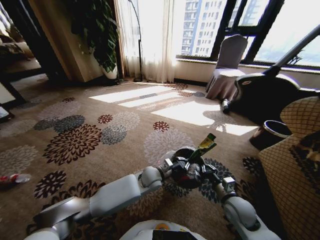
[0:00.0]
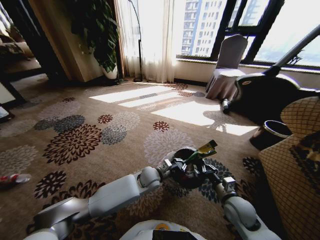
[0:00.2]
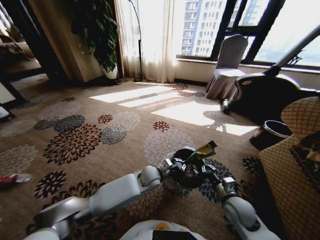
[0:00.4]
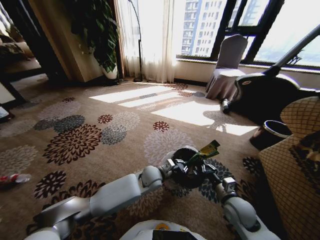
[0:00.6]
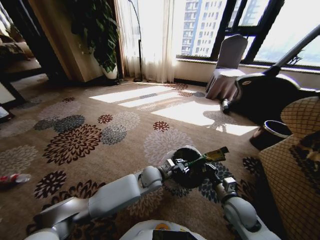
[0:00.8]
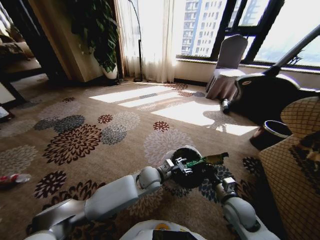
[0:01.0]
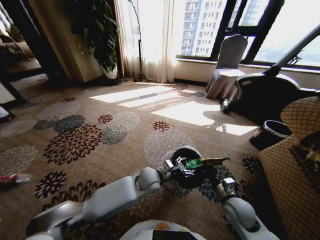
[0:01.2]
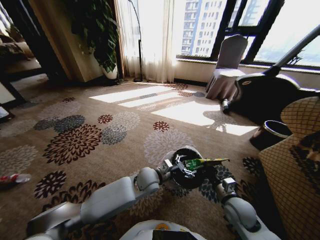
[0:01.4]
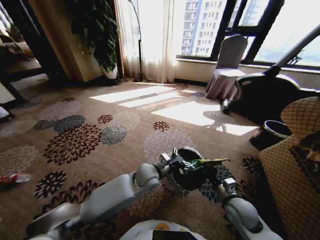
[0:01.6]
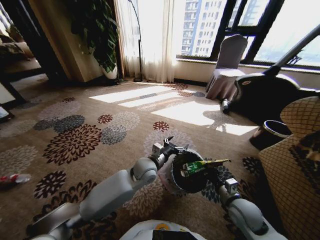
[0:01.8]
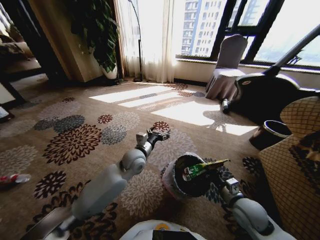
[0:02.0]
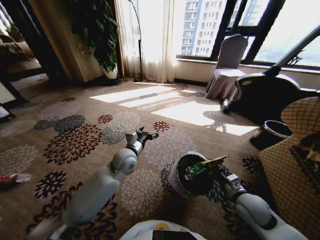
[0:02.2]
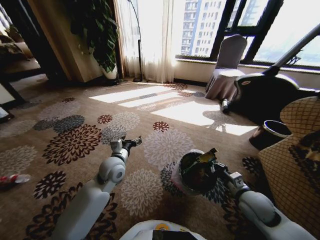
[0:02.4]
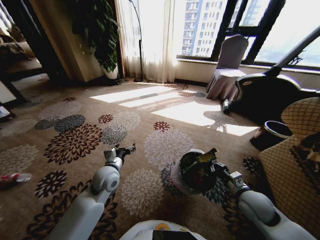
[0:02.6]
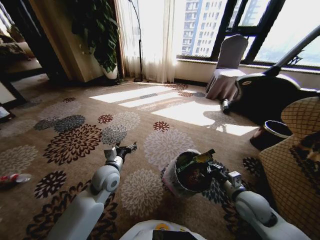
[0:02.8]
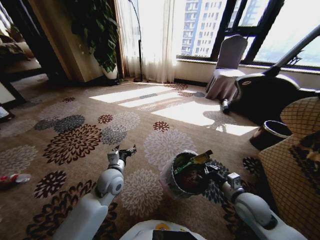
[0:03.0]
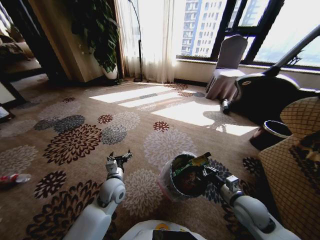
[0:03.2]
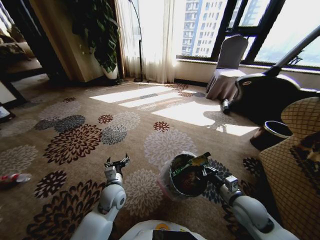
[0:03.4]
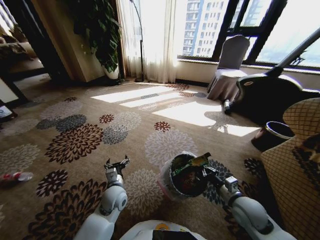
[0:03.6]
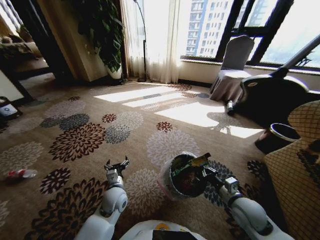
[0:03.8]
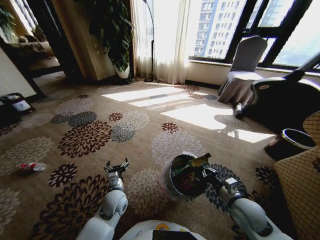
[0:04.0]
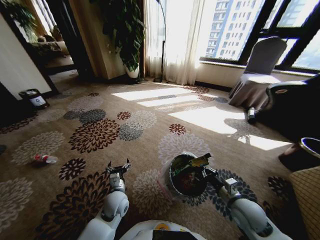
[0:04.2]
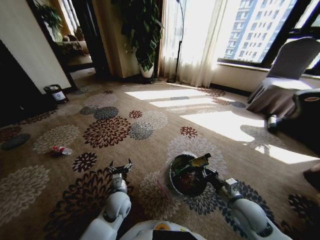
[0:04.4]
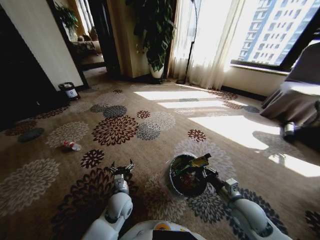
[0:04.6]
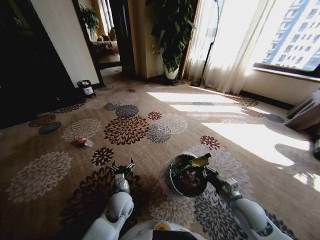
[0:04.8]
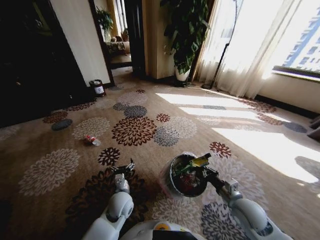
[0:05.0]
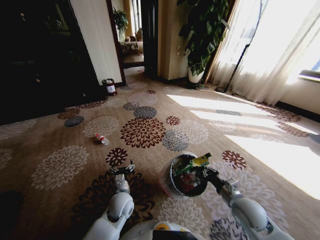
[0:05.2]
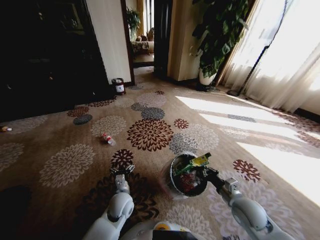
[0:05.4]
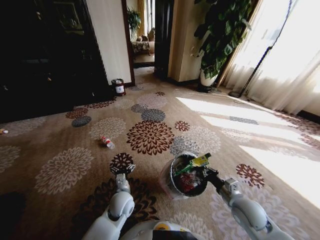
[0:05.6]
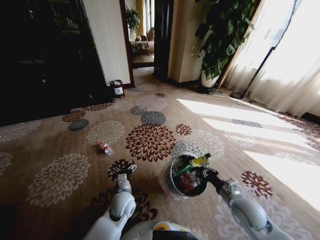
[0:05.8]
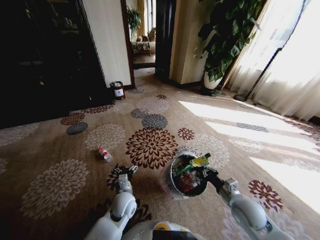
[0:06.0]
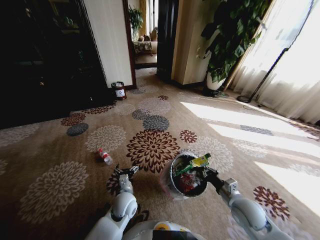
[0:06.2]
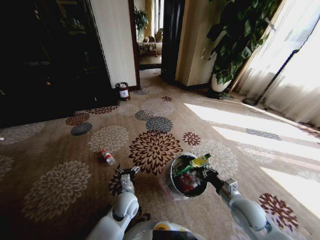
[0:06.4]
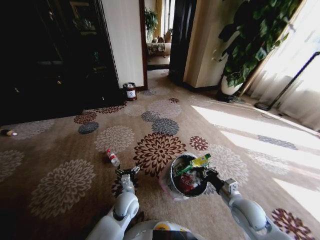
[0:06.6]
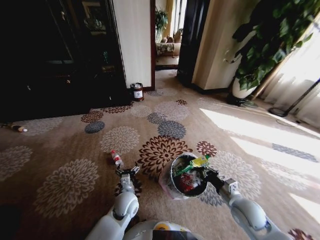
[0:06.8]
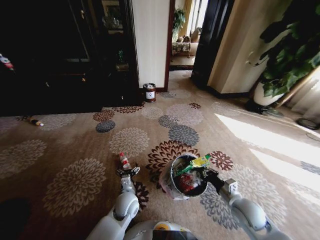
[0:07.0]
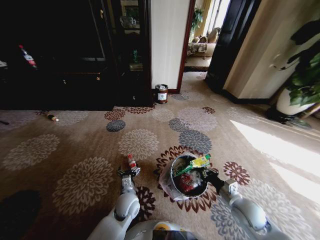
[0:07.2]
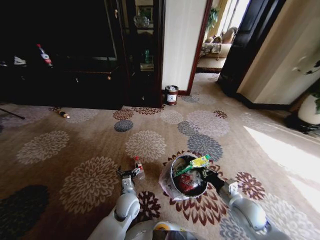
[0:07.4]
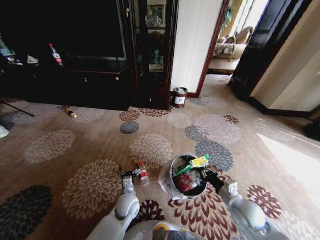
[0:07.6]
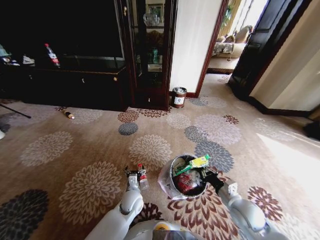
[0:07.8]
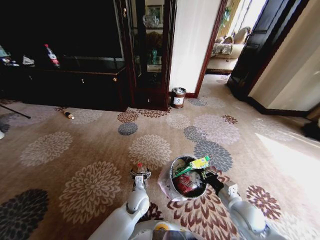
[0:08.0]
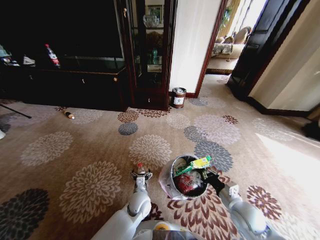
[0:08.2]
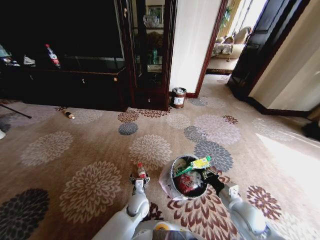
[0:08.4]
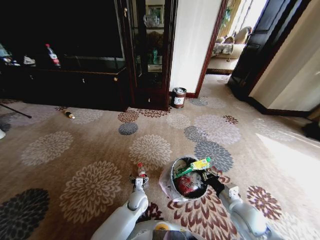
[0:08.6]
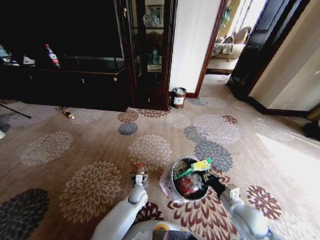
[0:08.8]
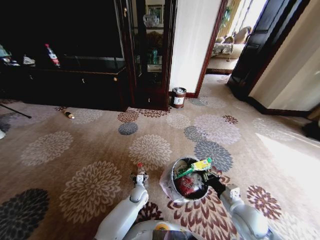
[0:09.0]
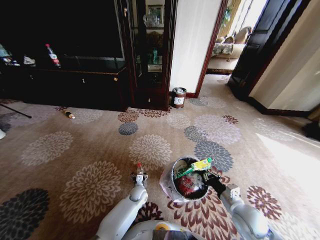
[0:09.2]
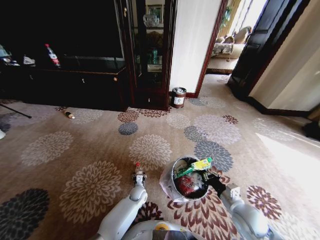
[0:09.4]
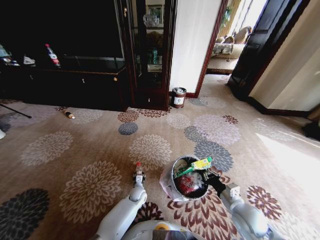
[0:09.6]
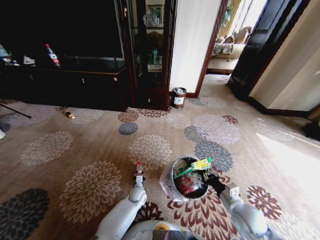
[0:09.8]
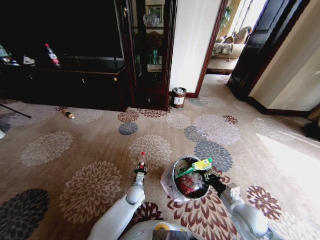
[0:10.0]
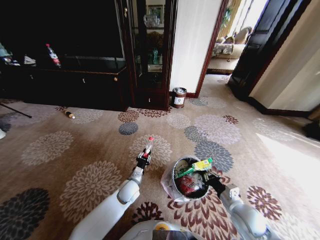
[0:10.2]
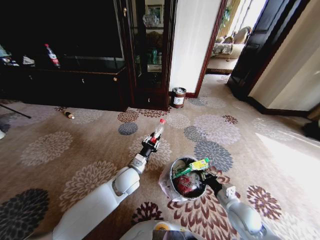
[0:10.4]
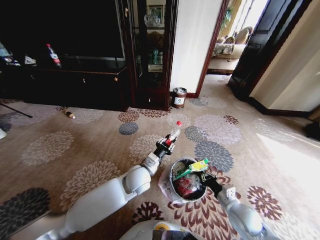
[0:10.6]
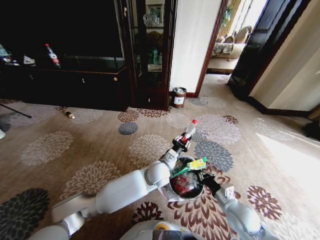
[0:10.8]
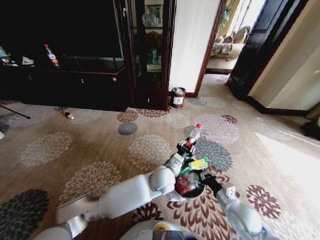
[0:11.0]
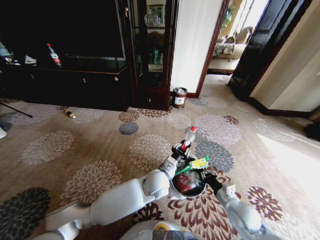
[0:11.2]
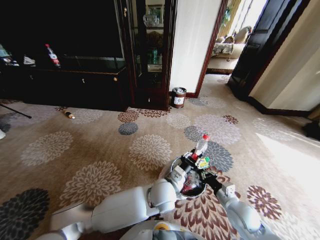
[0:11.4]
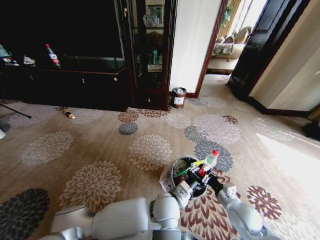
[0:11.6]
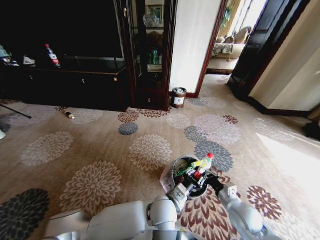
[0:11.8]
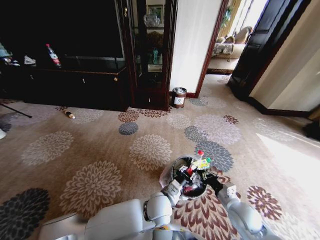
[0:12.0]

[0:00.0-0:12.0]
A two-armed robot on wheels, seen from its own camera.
Task of the whole recording: Pick up the trash from the ground and place it into the trash bin.
0:00.0 to 0:01.6: The left gripper heads upward, covering about 5 cm, and opens its fingers.
0:01.6 to 0:03.0: The left gripper moves to the left, approximately 15 cm.
0:03.0 to 0:04.4: The left gripper travels downward and backward by roughly 10 cm.
0:07.6 to 0:09.0: The left gripper heads downward and forward, covering some 15 cm.
0:09.0 to 0:10.4: The left gripper goes some 25 cm upward, and closes its fingers.
0:10.4 to 0:12.0: The left gripper travels to the right and backward by roughly 15 cm.

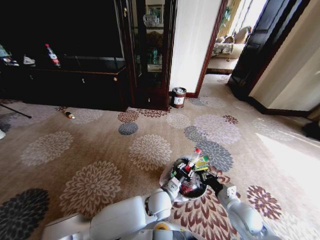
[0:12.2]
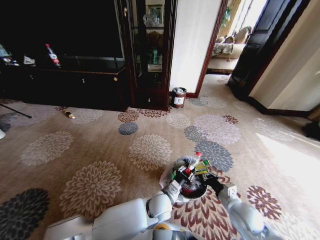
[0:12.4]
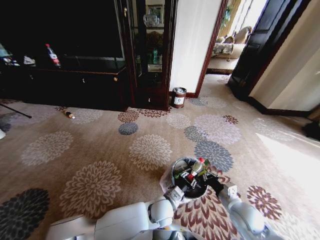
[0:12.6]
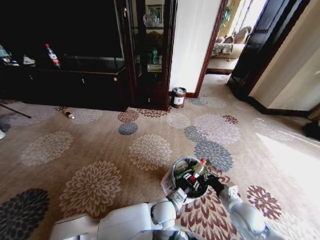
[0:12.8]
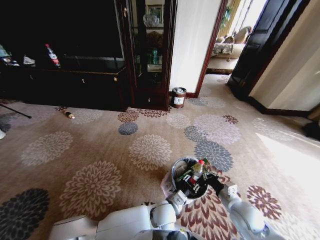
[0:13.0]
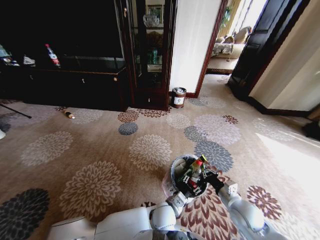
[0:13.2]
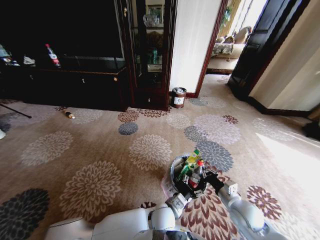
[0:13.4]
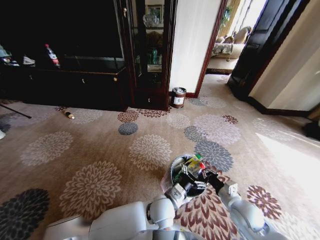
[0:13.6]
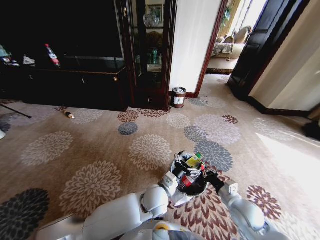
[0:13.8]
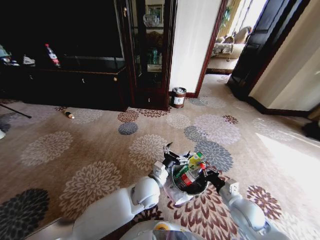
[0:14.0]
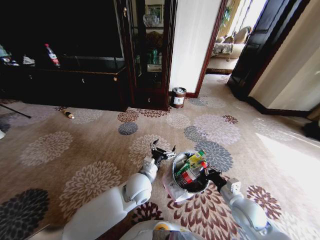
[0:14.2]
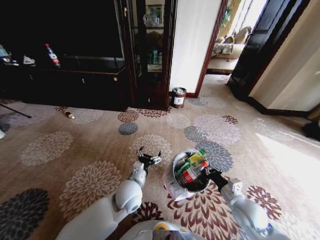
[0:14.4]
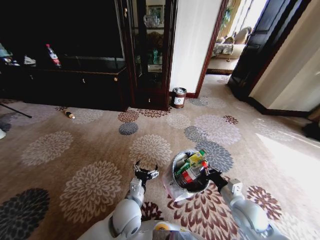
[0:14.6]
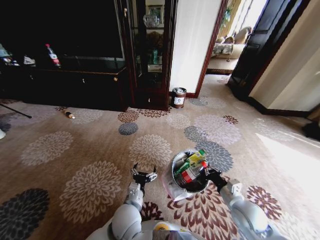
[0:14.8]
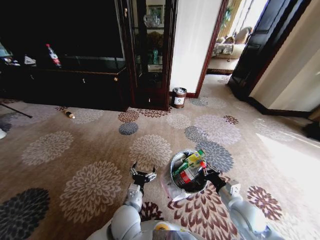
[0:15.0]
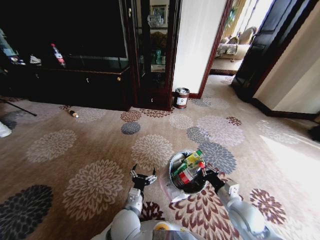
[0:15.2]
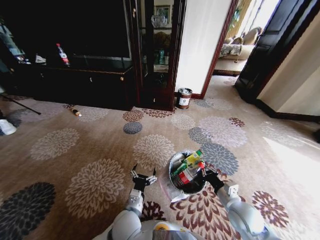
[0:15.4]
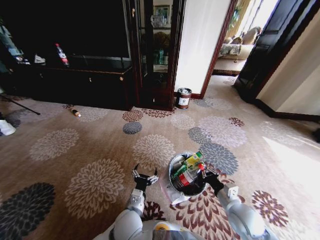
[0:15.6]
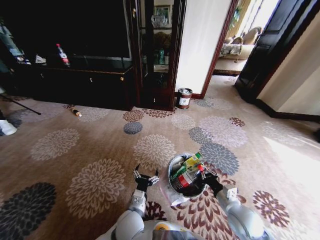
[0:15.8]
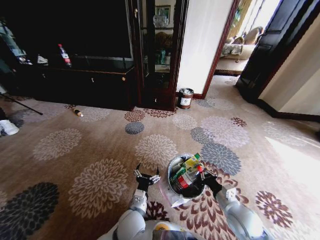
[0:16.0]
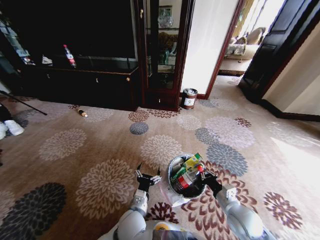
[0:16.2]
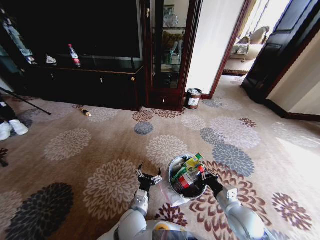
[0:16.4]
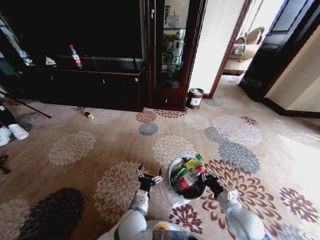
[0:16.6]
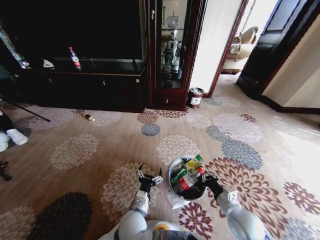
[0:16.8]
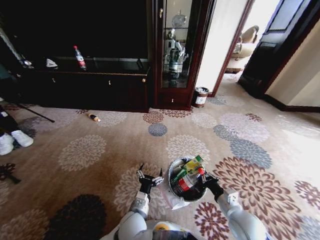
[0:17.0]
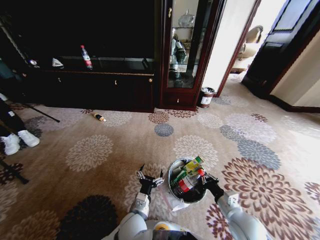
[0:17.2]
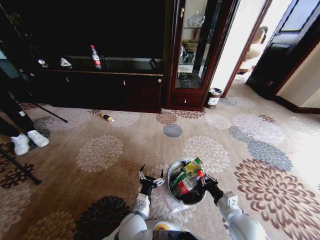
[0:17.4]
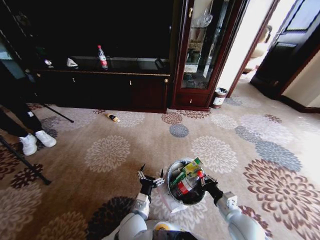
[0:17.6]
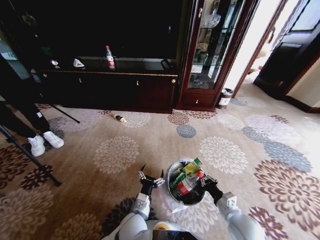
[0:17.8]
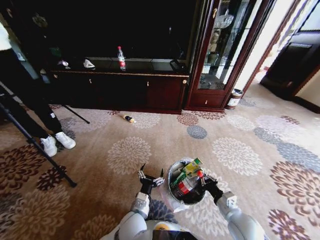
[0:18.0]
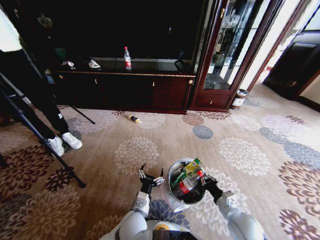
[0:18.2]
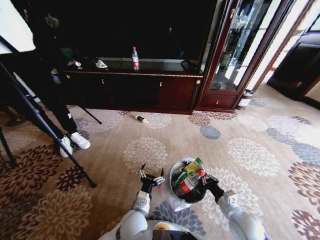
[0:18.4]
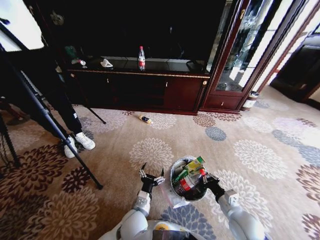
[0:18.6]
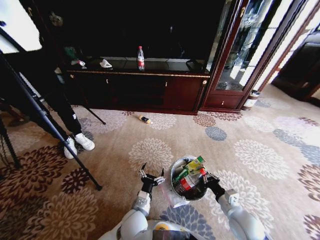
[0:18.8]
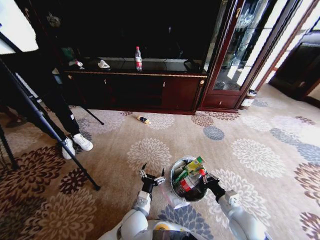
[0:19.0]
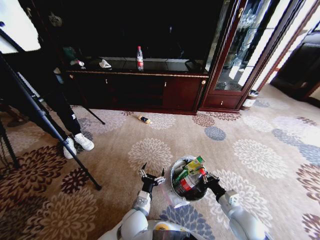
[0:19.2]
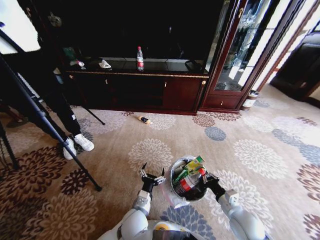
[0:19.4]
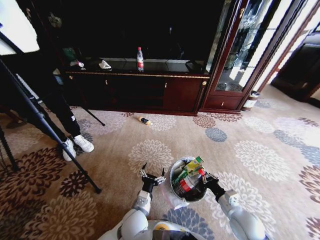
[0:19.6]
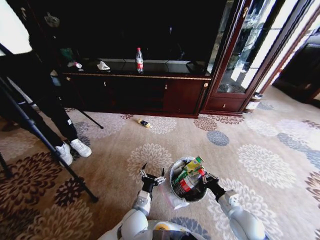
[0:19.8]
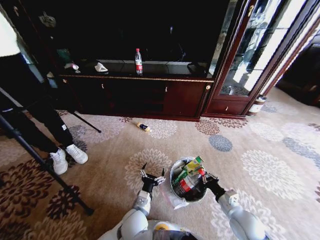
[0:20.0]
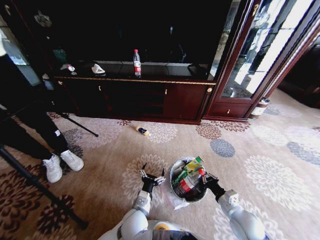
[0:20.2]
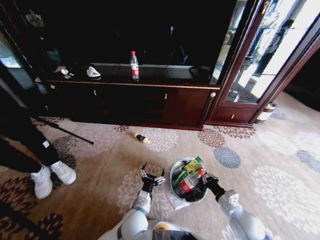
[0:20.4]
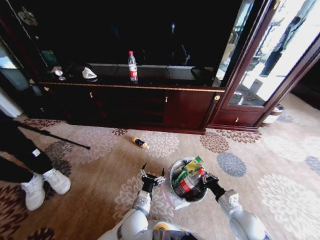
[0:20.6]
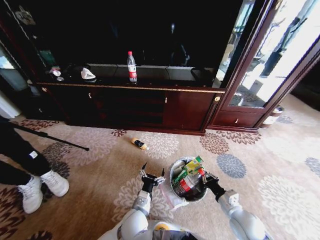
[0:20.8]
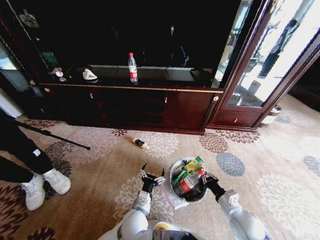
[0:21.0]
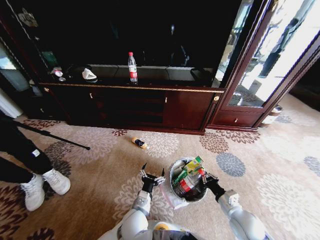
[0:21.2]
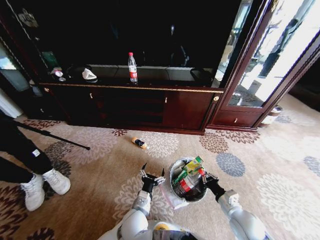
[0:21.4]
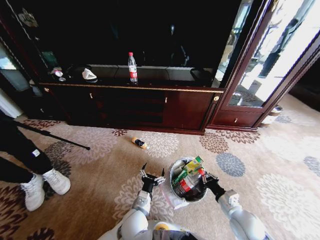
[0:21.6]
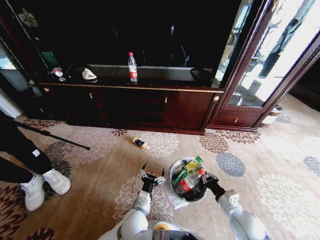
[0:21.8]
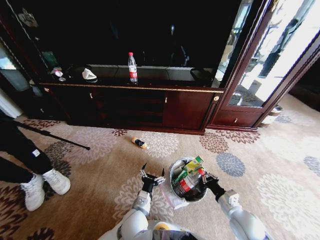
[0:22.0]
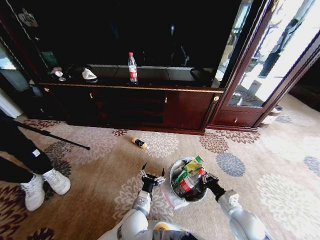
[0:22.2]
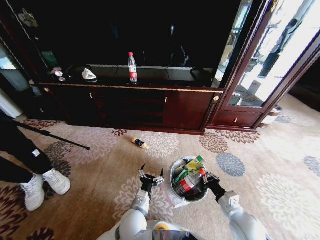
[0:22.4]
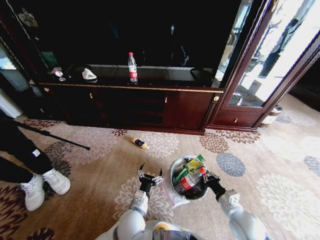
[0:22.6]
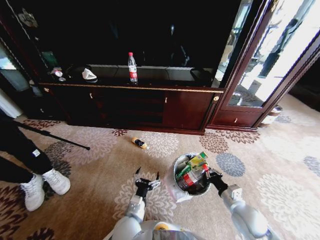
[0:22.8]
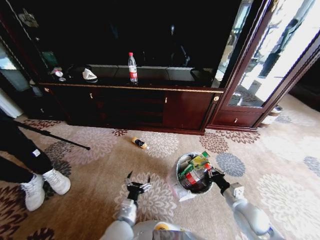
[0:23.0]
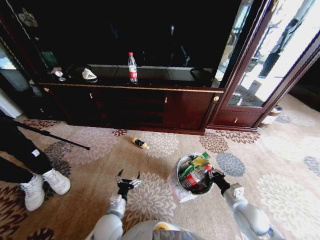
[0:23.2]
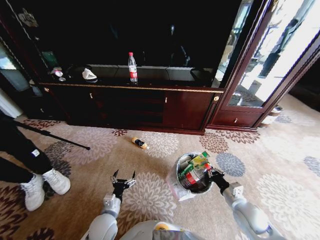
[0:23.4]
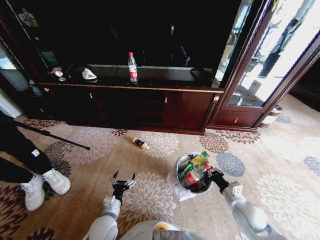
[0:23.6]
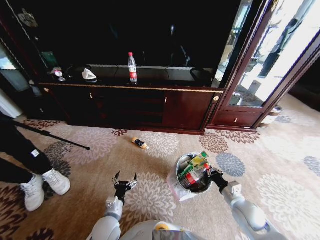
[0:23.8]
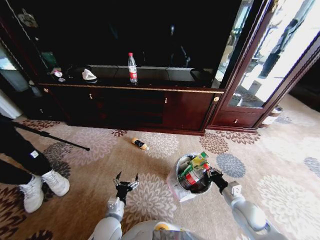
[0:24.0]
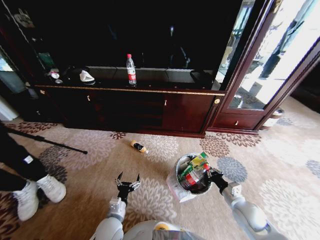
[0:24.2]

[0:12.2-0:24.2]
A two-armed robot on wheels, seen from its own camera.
Task of the whole recording: Pick up the trash from the ground and place it into the trash bin.
0:12.2 to 0:13.8: The left gripper opens.
0:13.8 to 0:15.2: The left gripper is displaced to the left and backward by roughly 15 cm.
0:21.2 to 0:22.6: There are only small adjustments of the grippers.
0:22.6 to 0:24.2: The left gripper shifts roughly 10 cm to the left and downward, while the right gripper moves about 5 cm.
